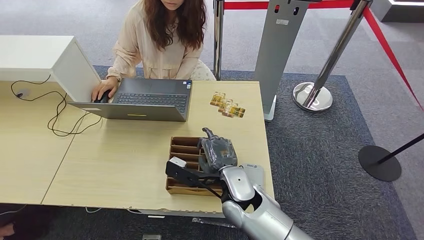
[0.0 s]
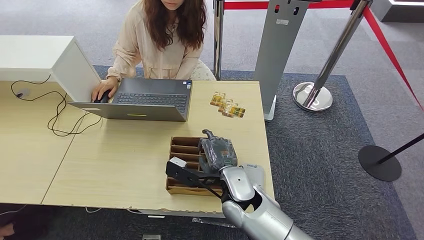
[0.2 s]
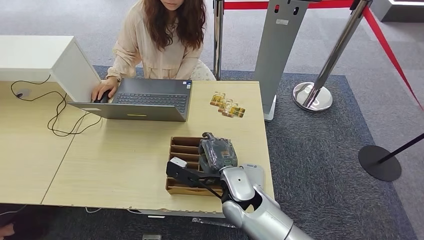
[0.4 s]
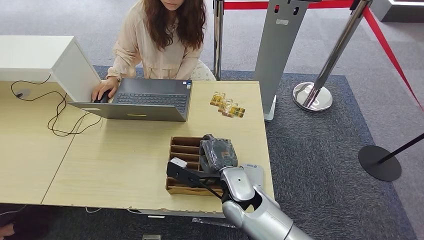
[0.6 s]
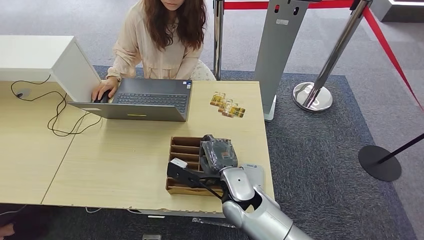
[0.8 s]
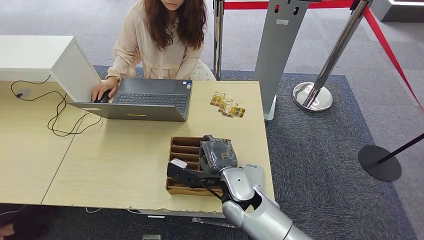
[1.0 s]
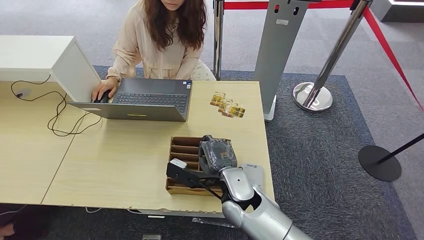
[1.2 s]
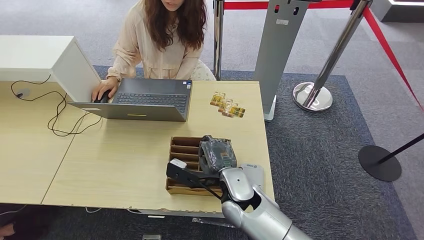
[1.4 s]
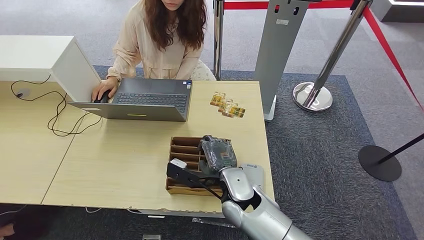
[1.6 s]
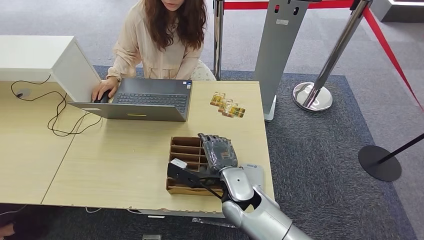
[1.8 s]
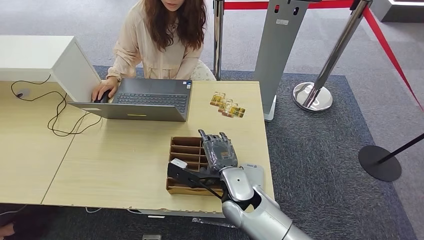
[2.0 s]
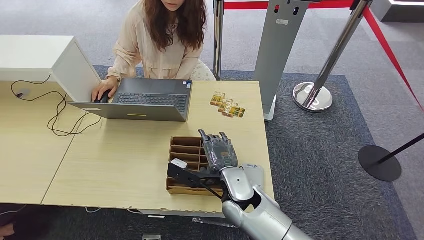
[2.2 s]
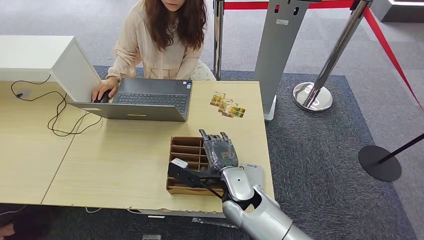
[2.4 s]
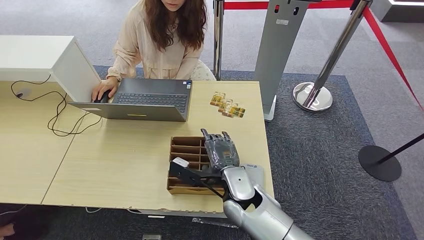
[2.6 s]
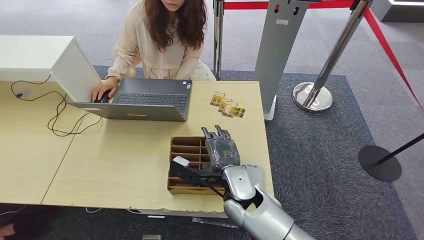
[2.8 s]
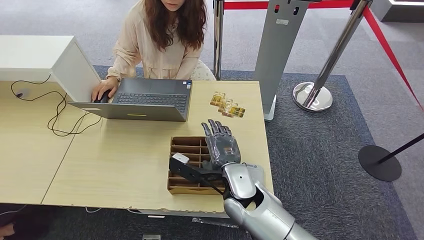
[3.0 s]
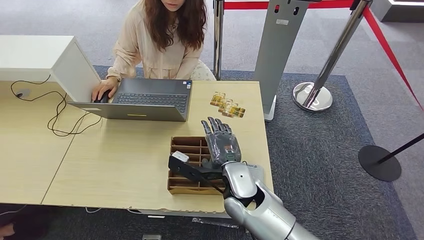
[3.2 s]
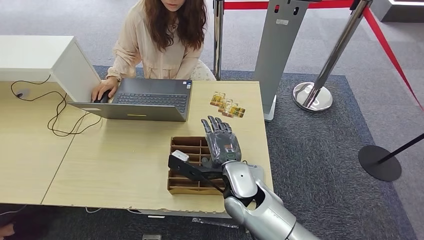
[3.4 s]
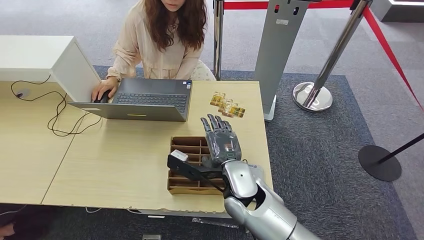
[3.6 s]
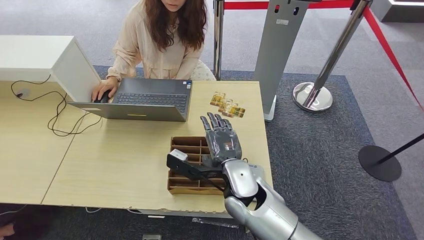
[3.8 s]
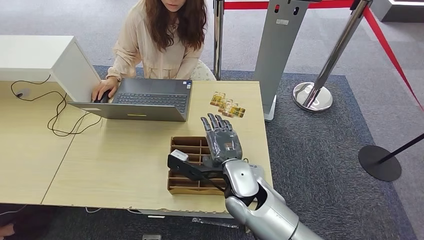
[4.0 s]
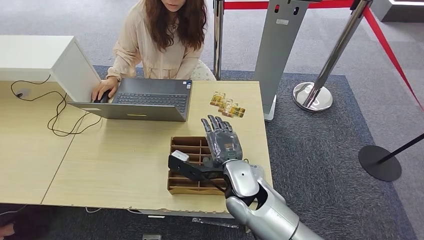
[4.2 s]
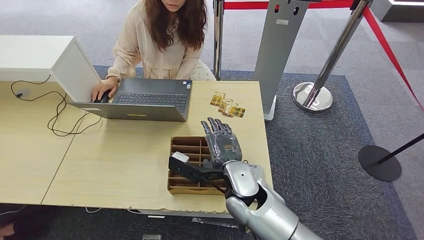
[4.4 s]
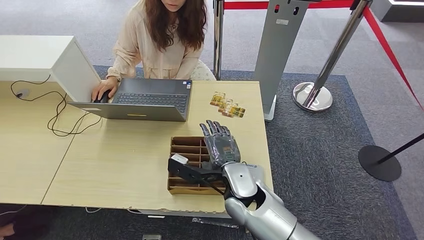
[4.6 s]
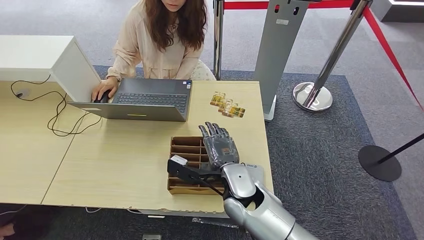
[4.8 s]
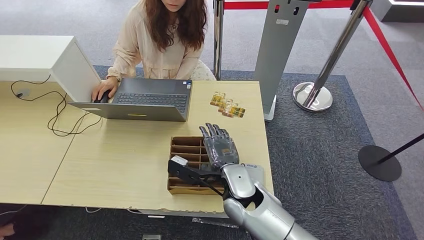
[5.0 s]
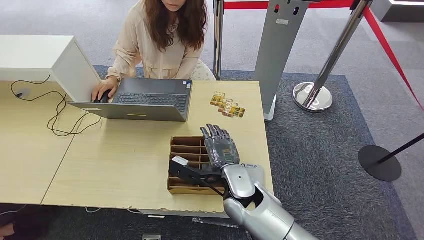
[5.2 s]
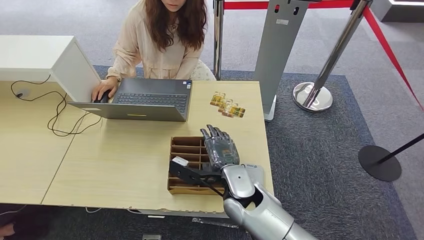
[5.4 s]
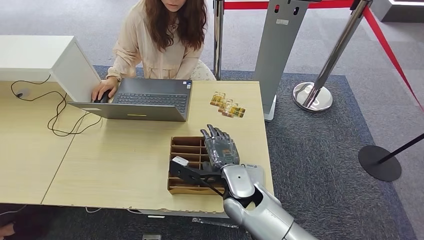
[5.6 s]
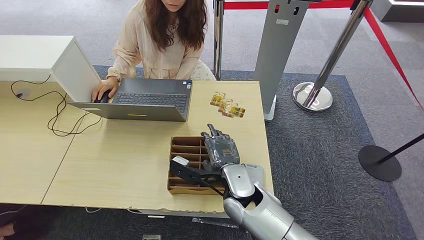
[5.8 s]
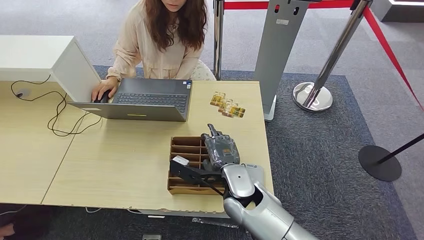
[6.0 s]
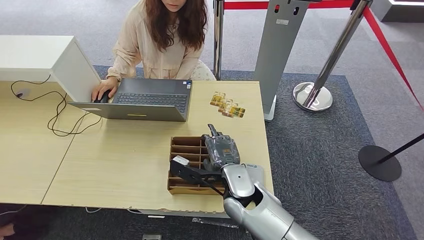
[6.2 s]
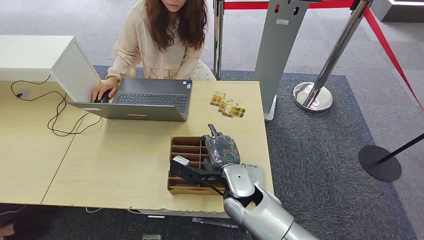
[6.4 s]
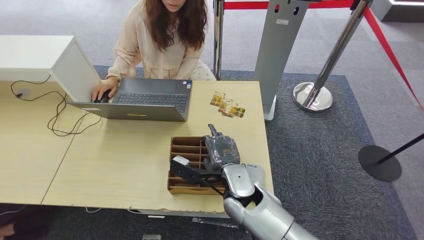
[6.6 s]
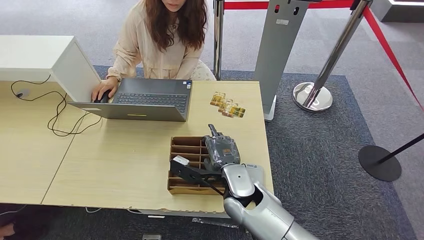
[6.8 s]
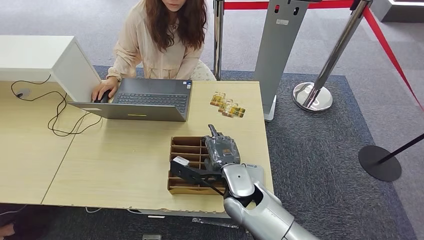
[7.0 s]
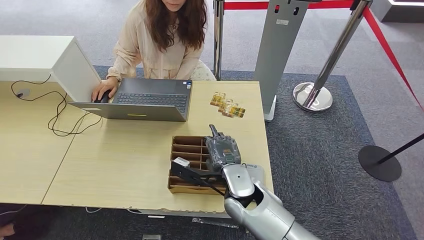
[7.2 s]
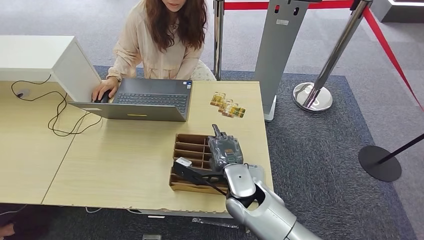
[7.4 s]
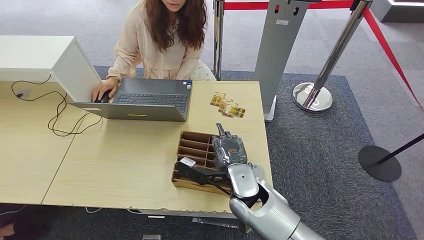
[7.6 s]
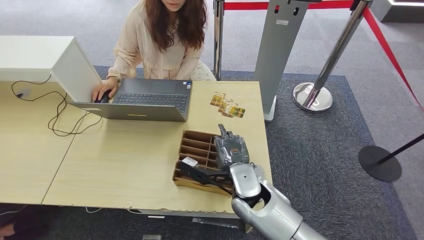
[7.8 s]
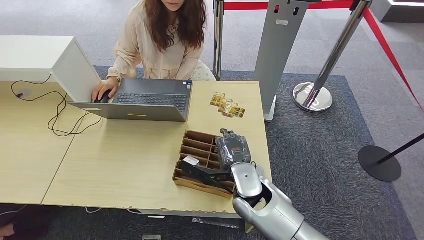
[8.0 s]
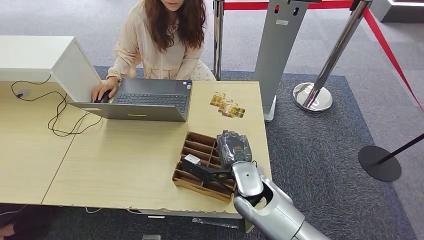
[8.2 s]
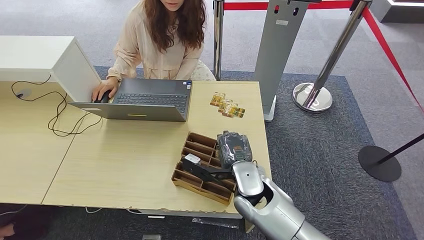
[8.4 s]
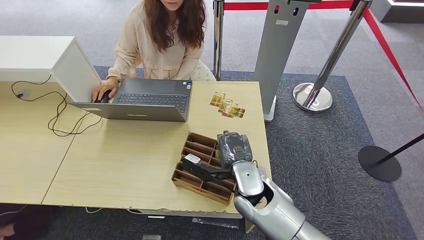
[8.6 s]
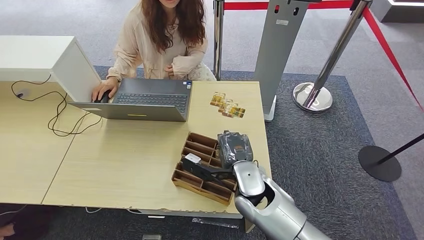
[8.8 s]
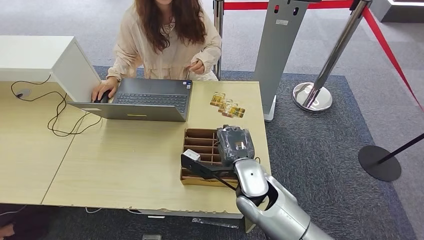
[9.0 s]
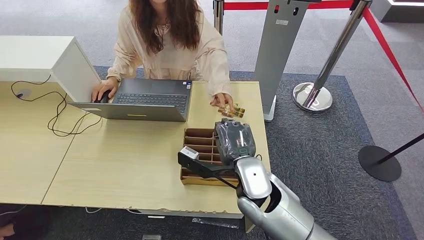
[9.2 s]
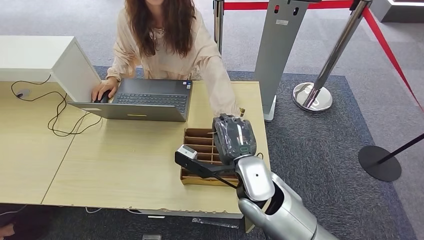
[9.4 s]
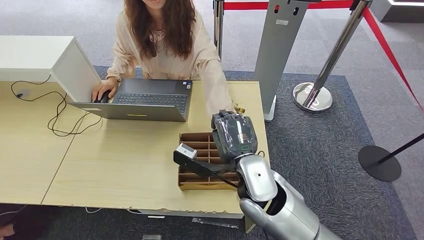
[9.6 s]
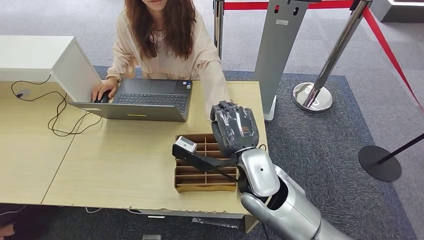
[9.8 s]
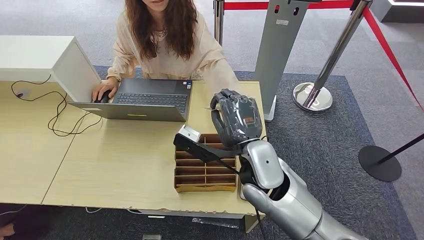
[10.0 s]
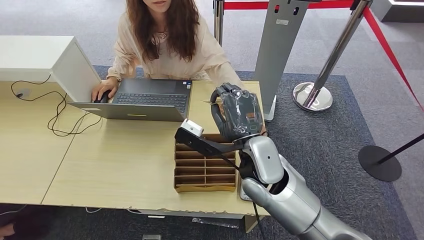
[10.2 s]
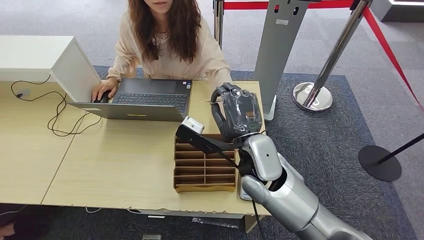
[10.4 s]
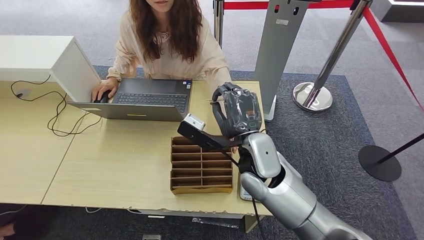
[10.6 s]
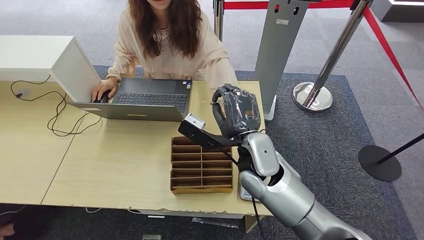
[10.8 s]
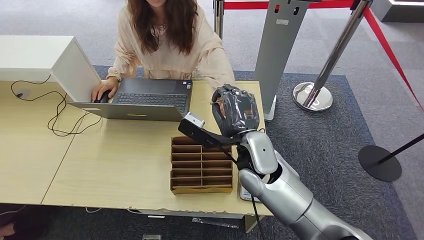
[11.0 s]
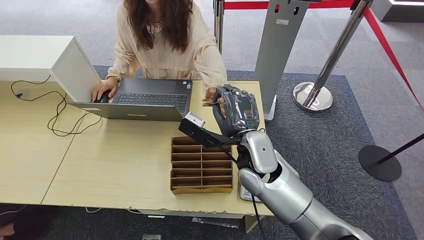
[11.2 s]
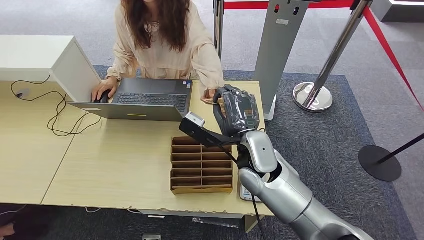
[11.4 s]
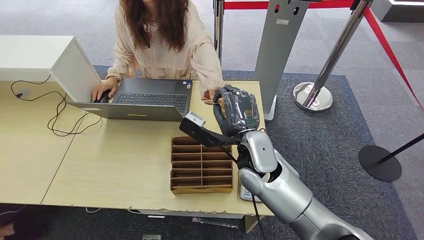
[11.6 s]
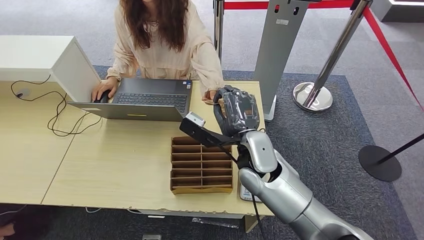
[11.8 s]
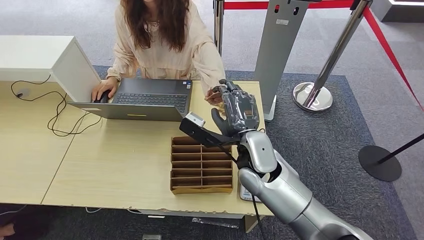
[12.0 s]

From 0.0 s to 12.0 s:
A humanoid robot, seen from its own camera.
Step, from 0.0 s to 9.8 s: Pick up the room key from the key card box.
From 0.0 s to 3.0 s: Both hands stay about where they are.
From 3.0 s to 9.0 s: The hands stay close to where they were, moving slightly.
From 9.0 s to 10.4 s: The right hand moves upward, approximately 10 cm.
From 10.4 s to 12.0 s: The hands move only a little.

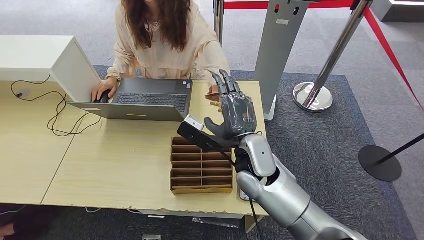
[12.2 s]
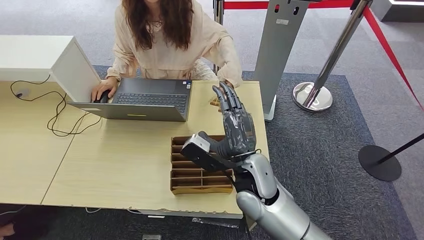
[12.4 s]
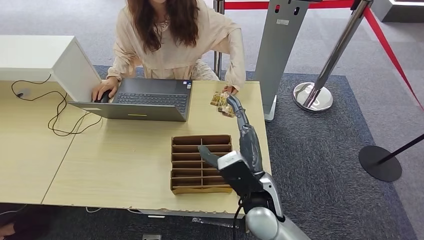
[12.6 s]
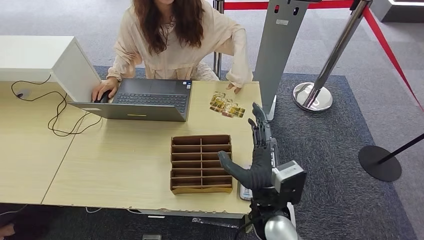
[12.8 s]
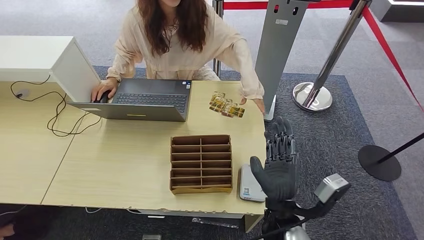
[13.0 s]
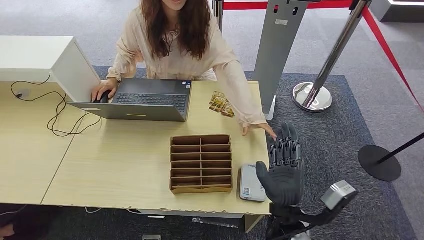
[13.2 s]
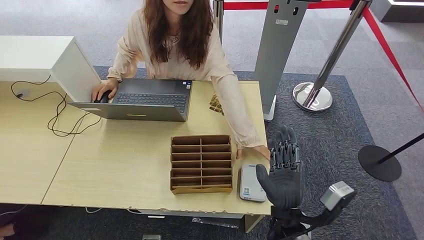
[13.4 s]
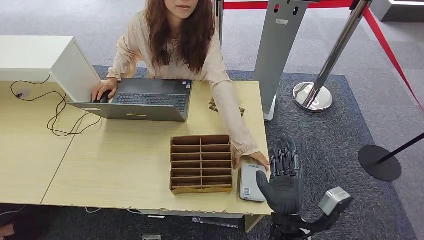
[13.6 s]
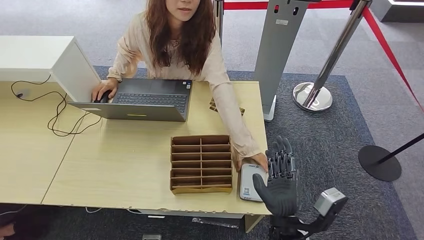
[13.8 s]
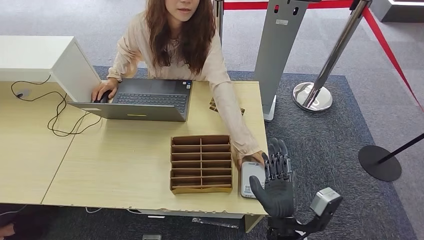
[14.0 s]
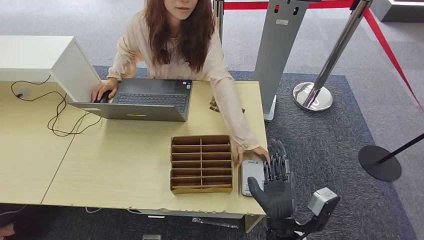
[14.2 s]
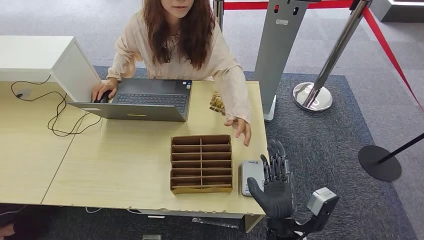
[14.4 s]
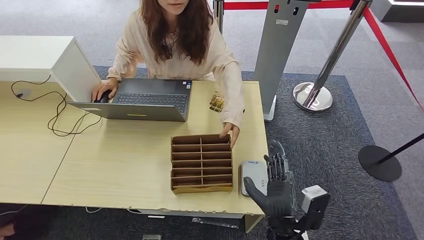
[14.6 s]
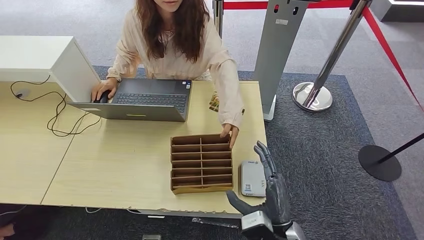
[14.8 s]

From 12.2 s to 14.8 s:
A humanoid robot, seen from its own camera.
Step, from 12.2 s to 14.8 s: Hand the room key to the person.
From 12.2 s to 13.4 s: The right hand heads backward, downward and to the right, covering approximately 15 cm.
